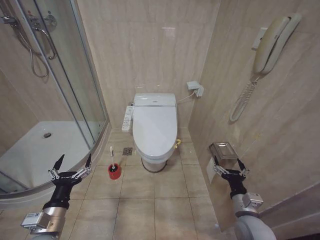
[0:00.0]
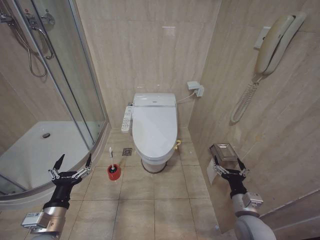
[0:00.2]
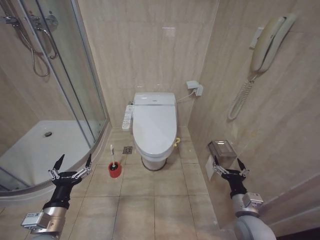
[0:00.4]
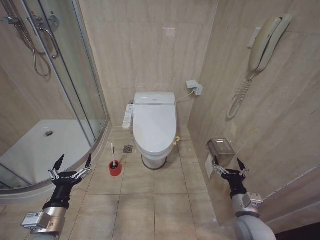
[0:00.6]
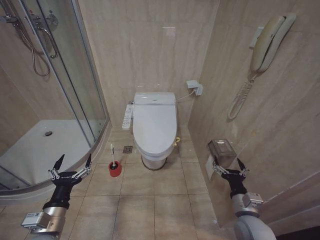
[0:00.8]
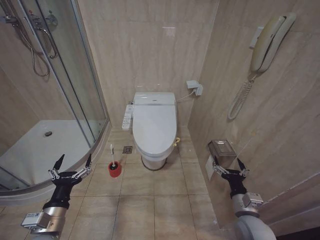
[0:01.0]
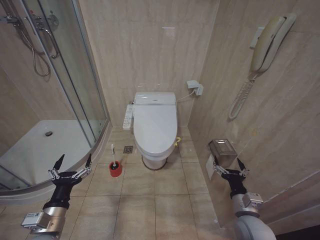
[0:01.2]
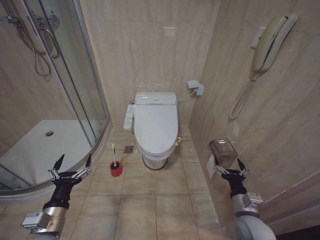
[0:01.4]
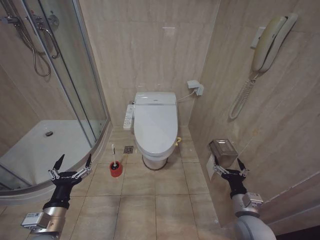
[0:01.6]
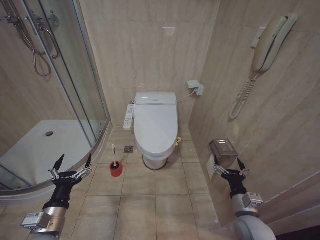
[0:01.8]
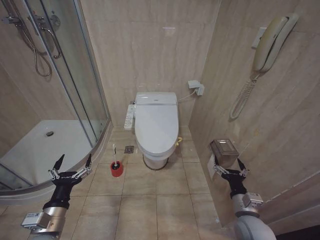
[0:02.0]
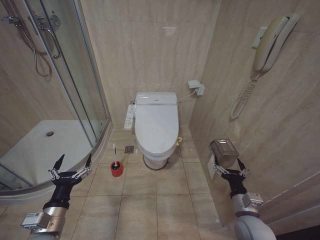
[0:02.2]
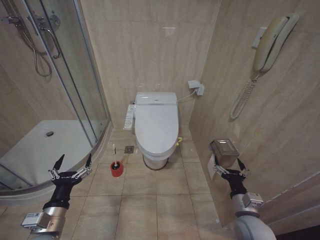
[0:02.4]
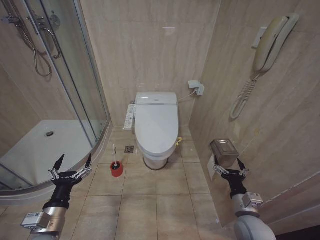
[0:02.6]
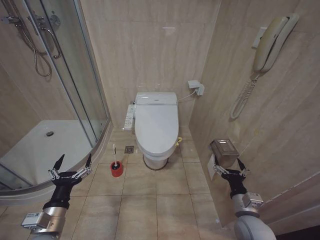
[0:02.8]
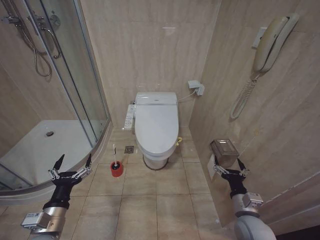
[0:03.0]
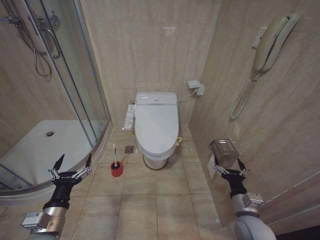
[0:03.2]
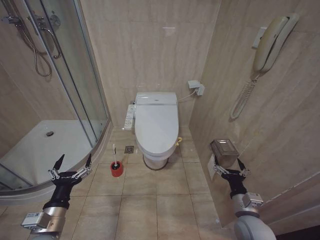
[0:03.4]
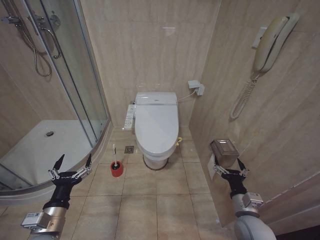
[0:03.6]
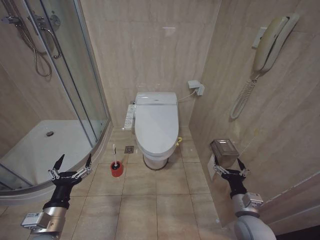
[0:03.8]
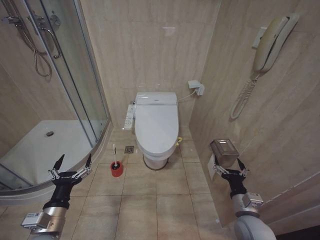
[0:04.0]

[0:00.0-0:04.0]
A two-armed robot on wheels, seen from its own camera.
Task of the whole recording: Open the toilet lid, clean the toilet bowl with a toilet brush, close the toilet lid, and flush.
0:00.0 to 0:04.0: Both grippers stay put.

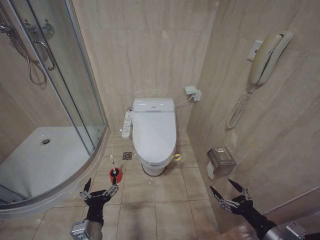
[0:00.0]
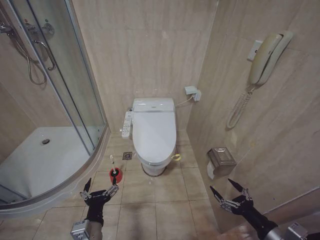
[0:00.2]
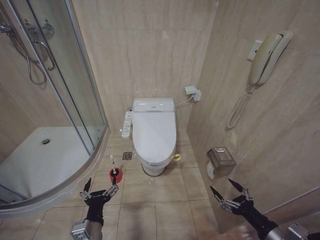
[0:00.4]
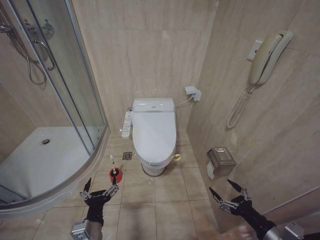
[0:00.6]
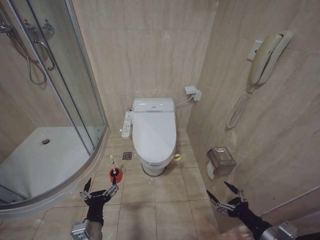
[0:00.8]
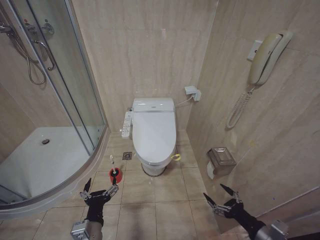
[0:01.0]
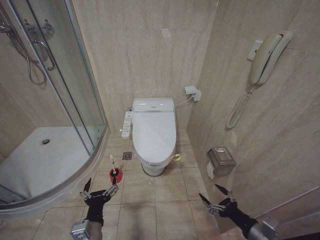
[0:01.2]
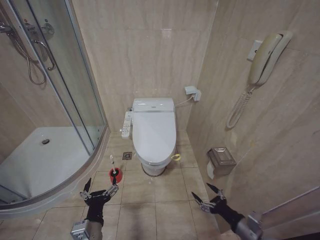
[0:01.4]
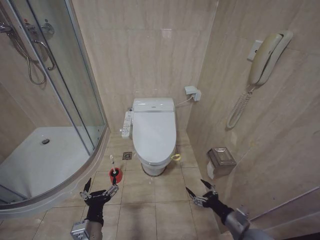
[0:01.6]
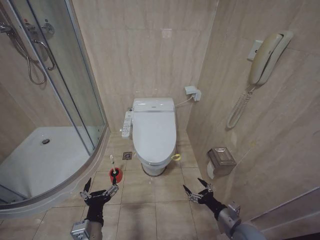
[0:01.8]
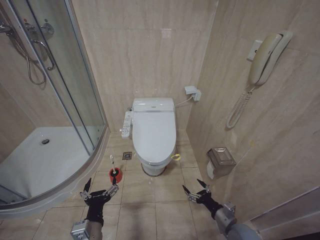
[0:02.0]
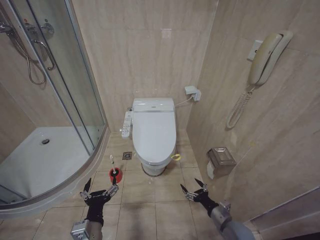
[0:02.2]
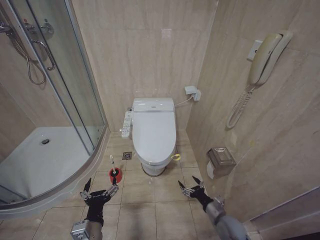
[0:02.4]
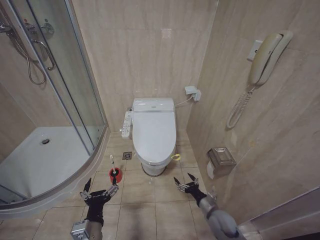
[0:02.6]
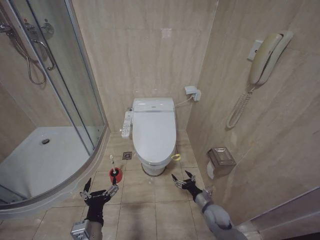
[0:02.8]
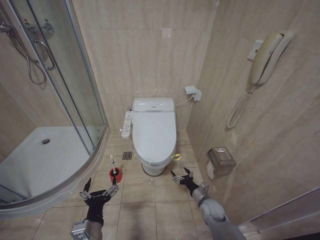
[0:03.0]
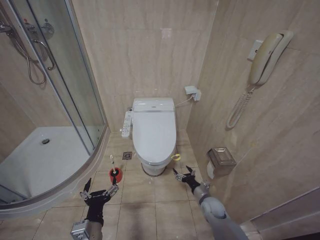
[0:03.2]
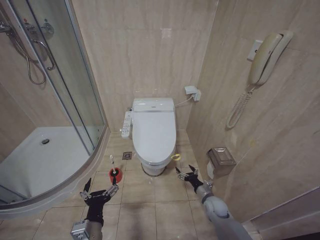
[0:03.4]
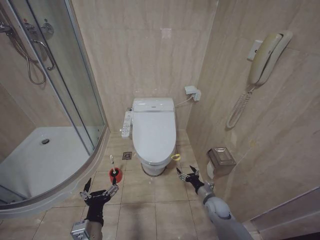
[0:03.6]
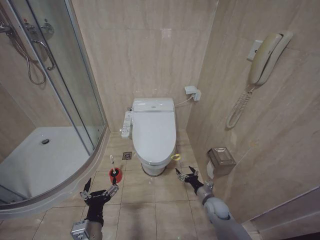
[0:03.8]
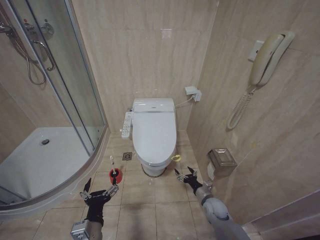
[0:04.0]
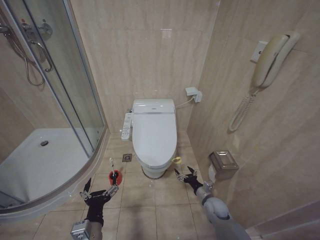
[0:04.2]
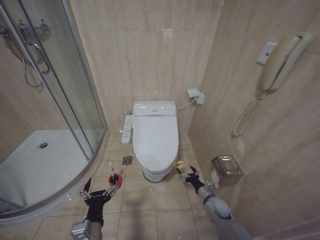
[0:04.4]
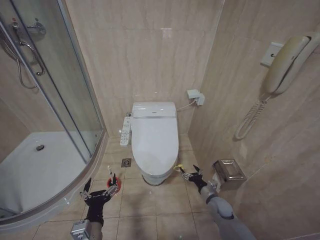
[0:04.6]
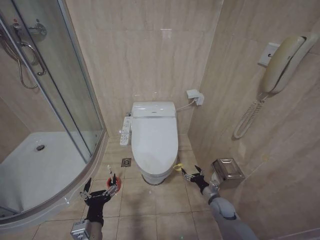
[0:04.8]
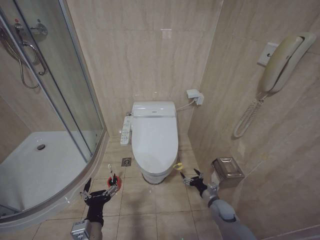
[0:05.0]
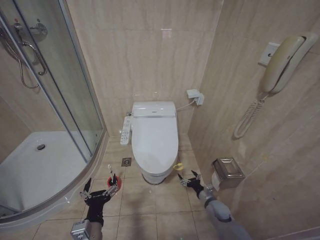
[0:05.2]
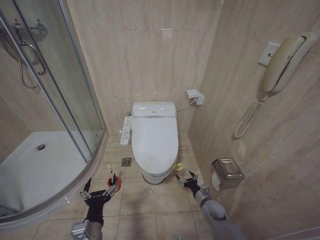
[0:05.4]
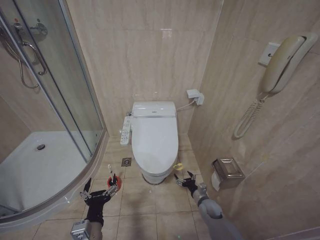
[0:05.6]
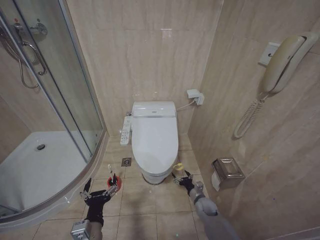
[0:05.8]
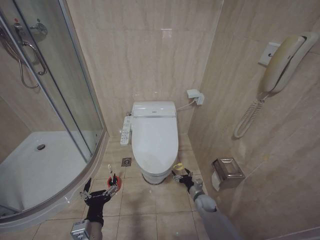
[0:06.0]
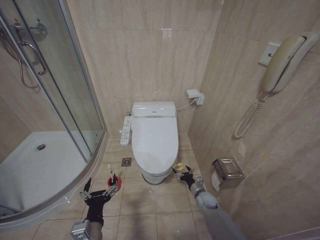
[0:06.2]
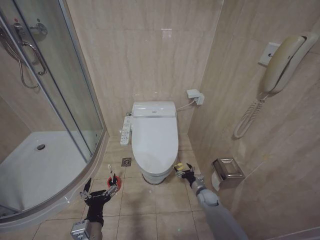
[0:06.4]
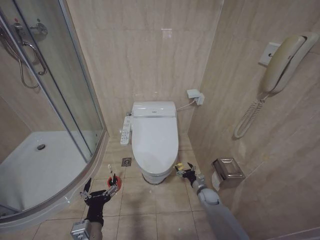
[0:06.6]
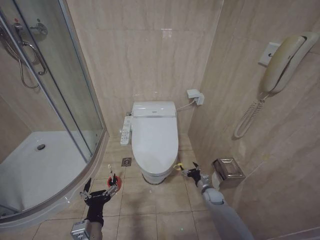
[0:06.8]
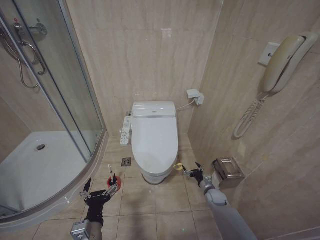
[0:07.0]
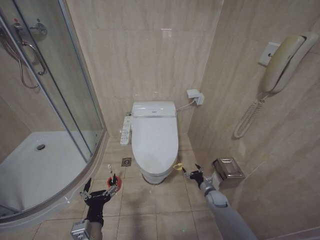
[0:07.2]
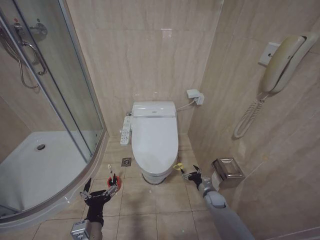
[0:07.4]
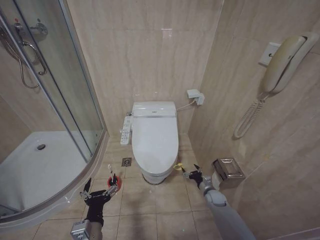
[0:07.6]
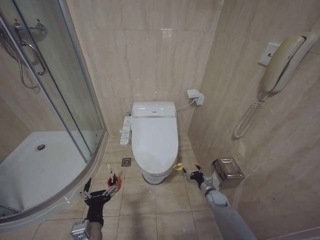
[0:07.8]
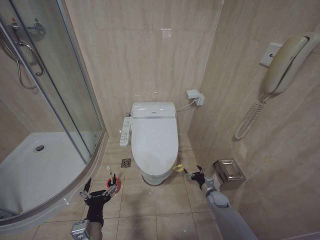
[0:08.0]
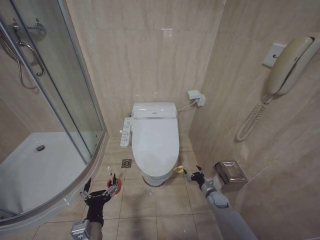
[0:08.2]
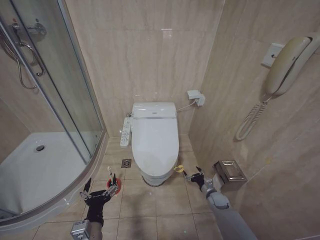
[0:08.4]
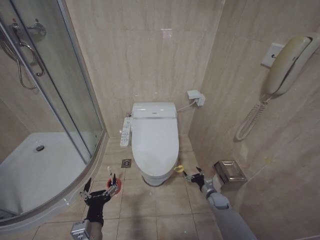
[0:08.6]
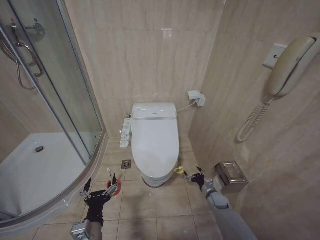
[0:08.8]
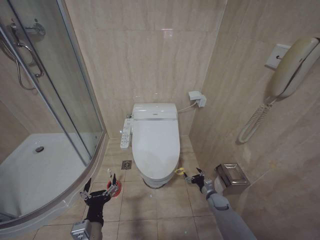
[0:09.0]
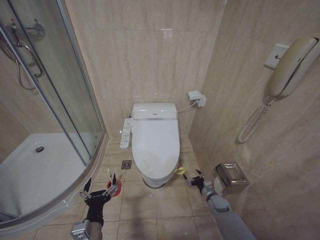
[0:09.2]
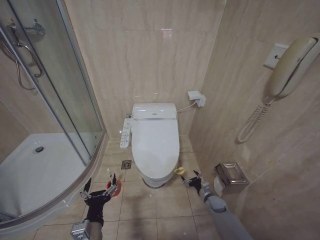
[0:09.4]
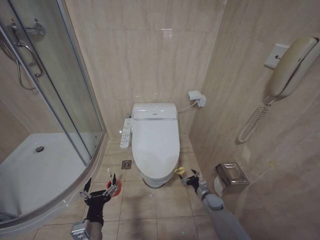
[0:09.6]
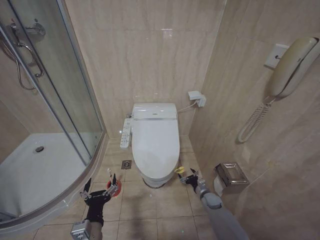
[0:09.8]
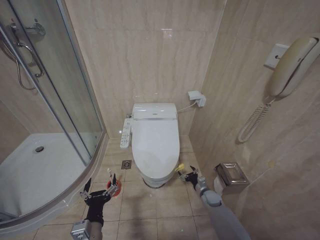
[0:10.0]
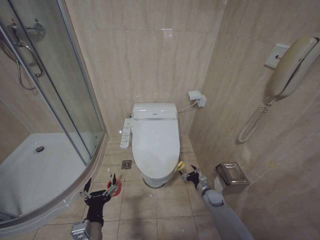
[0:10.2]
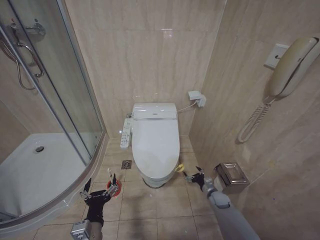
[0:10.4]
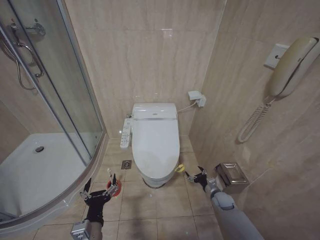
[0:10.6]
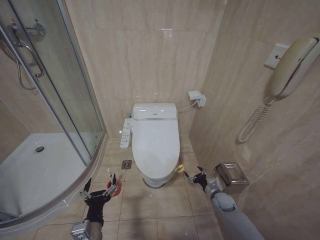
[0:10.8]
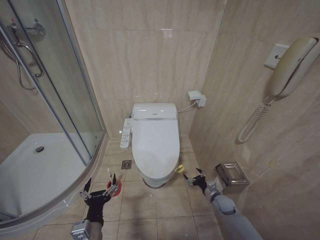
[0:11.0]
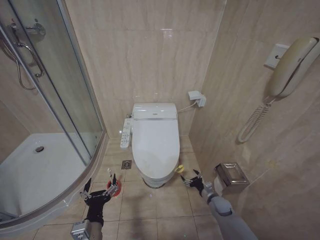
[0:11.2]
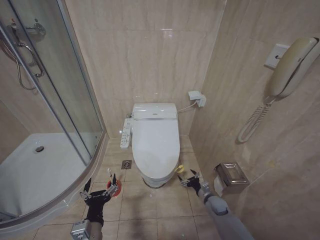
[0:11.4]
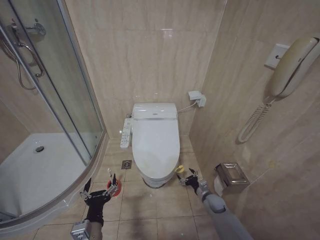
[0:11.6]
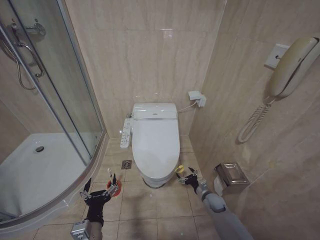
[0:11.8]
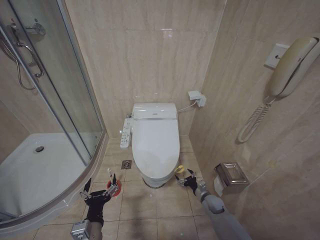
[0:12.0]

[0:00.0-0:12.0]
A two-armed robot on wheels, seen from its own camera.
Task of the whole recording: Open the toilet lid, clean the toilet bowl with a toilet brush, close the toilet lid, and flush.
0:01.6 to 0:03.0: The right gripper travels forward, downward and to the left by roughly 20 cm.
0:03.0 to 0:04.4: The grippers move only a little.
0:04.4 to 0:06.0: The right gripper travels downward by roughly 5 cm.
0:06.0 to 0:07.6: The right gripper shifts some 5 cm to the right.
0:07.6 to 0:09.0: The grippers stay close to where they were, moving slightly.

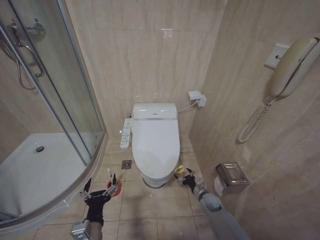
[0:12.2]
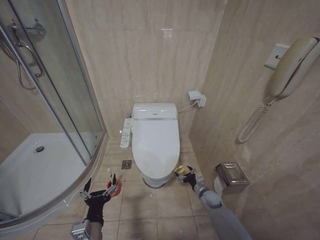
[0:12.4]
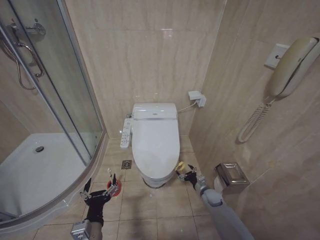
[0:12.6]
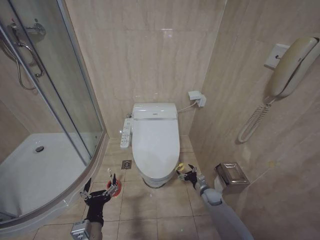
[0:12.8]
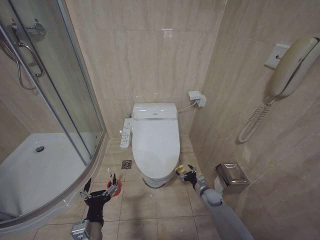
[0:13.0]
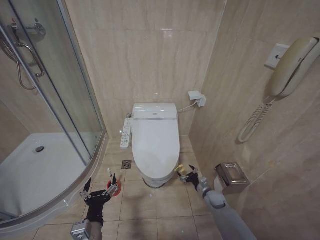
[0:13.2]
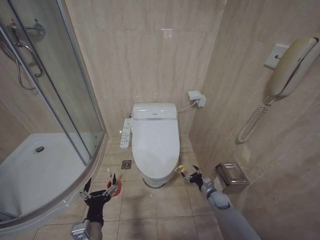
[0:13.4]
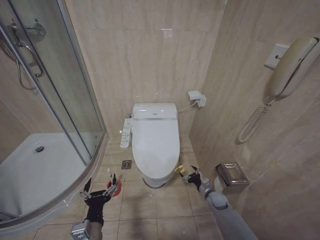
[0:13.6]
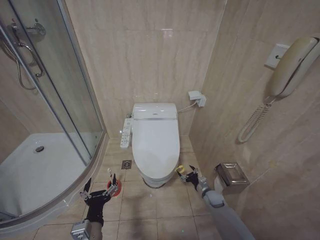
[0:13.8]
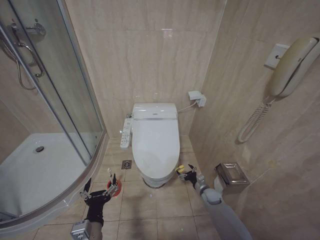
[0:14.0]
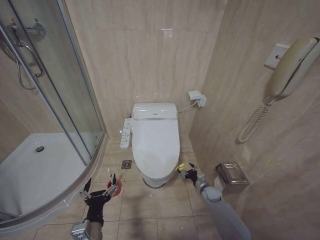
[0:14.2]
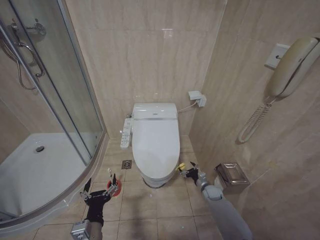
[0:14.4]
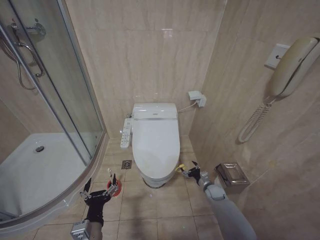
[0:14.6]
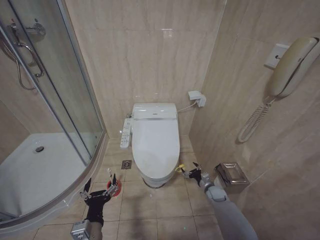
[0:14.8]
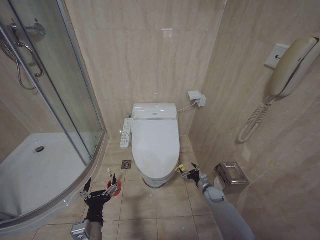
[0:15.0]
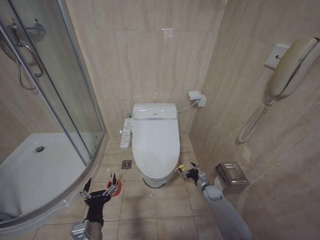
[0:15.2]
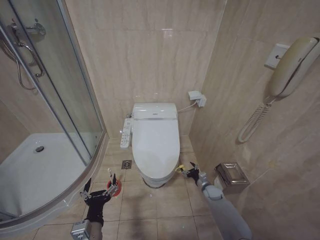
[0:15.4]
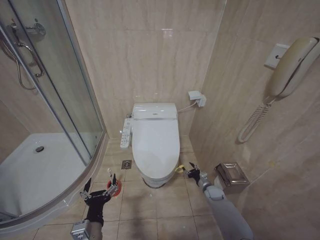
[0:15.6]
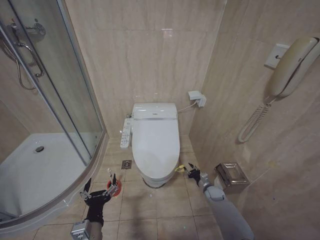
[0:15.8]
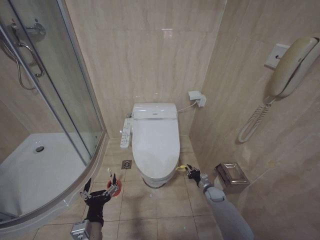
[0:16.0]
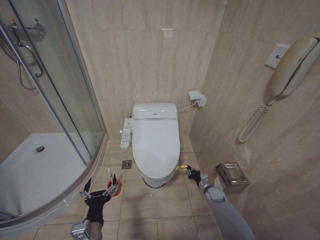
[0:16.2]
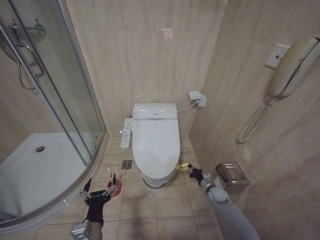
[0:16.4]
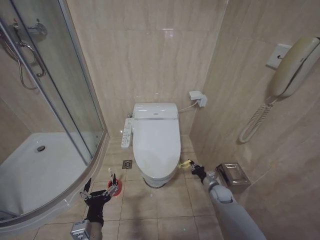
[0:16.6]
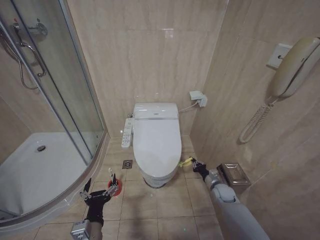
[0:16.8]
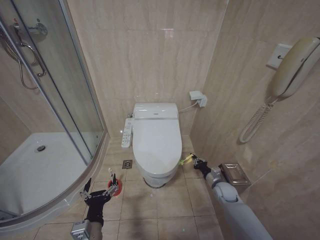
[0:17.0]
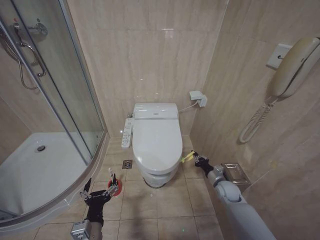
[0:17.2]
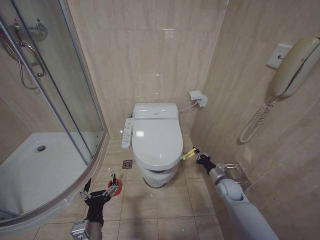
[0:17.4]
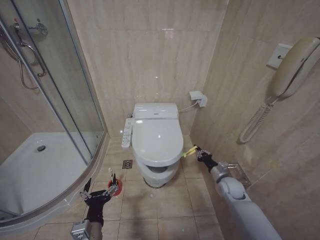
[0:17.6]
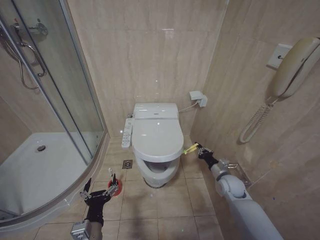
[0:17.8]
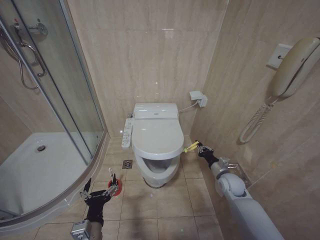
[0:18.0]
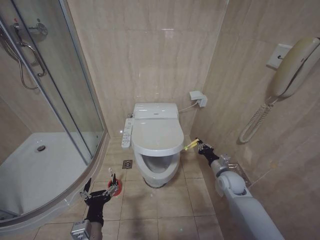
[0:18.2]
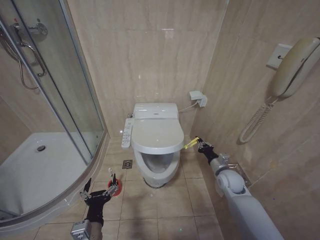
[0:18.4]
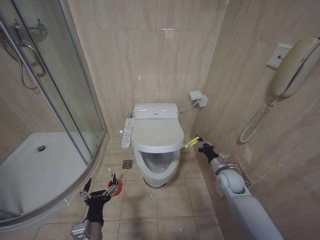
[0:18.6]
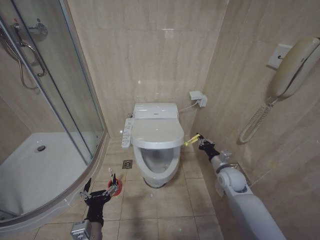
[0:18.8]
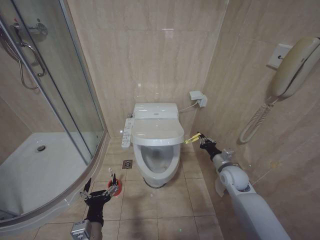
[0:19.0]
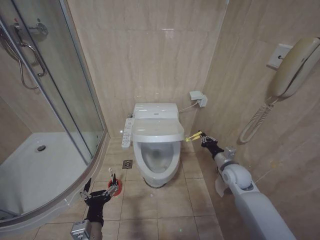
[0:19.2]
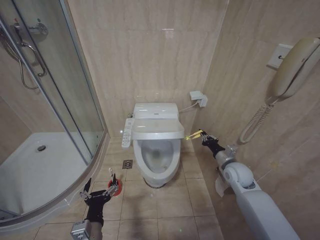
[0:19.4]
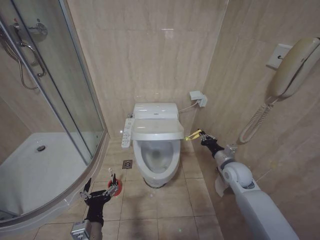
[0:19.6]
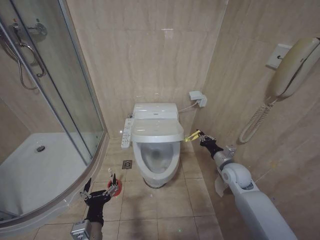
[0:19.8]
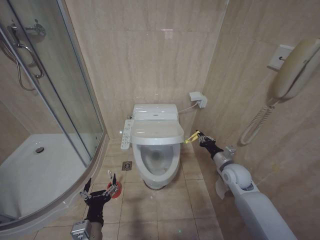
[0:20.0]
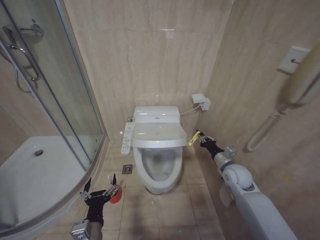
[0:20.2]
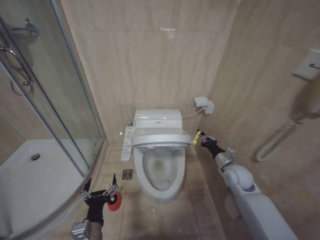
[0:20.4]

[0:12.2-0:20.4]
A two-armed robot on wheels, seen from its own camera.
Task of the whole recording: Open the toilet lid, clean the toilet bowl with a toilet brush, close the toilet lid, and flush.
0:15.4 to 0:17.2: The right gripper heads upward, covering some 10 cm, and closes its fingers.
0:17.2 to 0:18.8: The right gripper shifts approximately 10 cm upward.
0:18.8 to 0:20.4: The grippers make only small movements.
